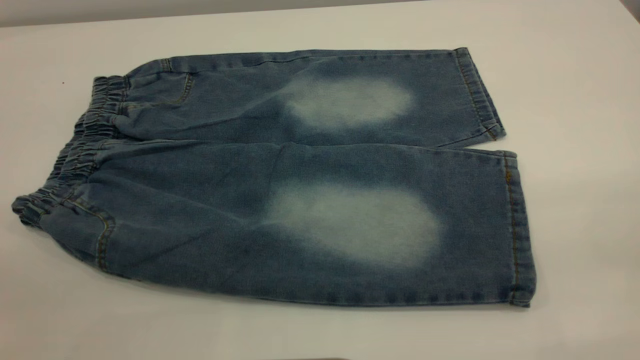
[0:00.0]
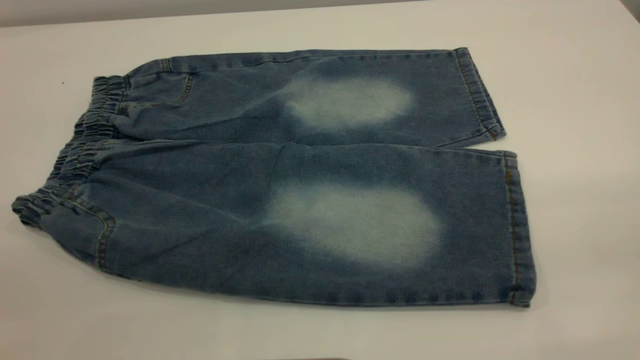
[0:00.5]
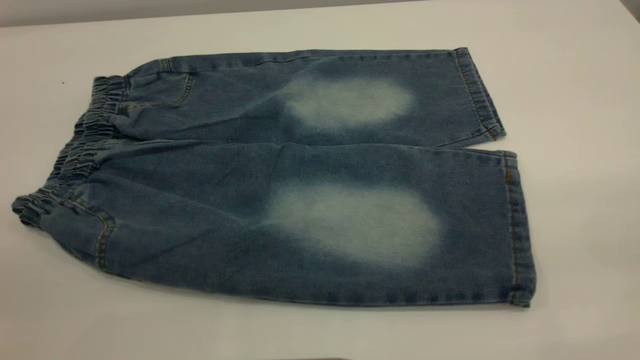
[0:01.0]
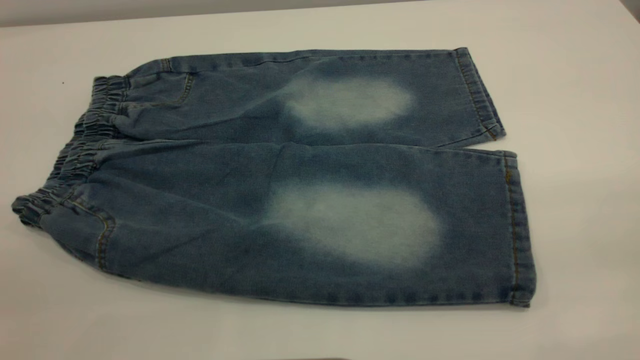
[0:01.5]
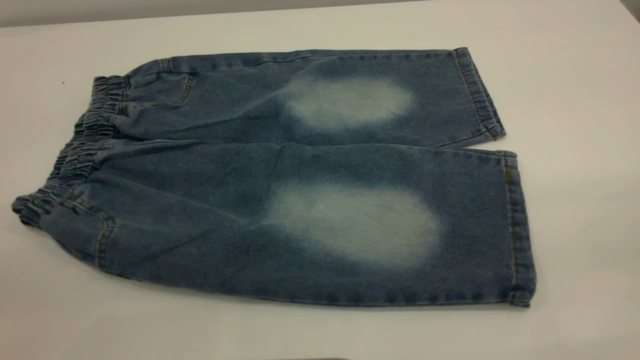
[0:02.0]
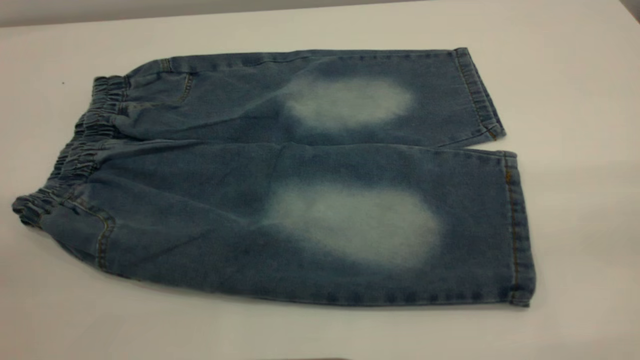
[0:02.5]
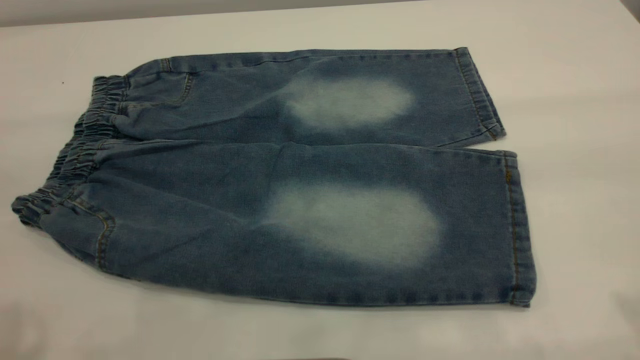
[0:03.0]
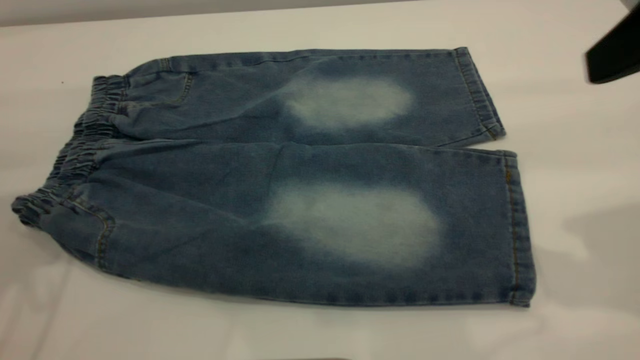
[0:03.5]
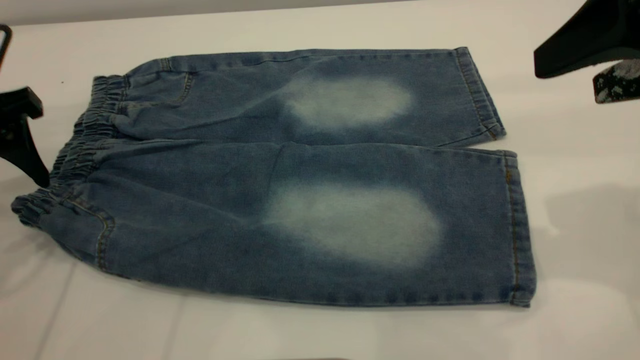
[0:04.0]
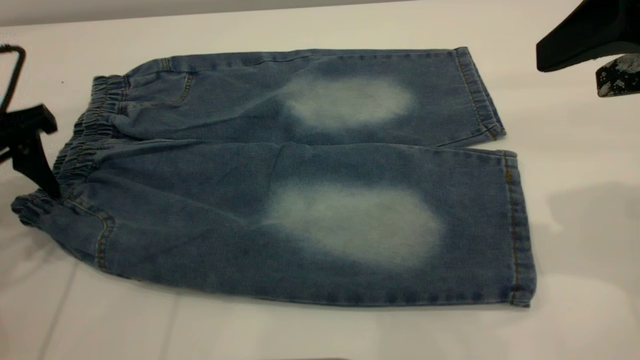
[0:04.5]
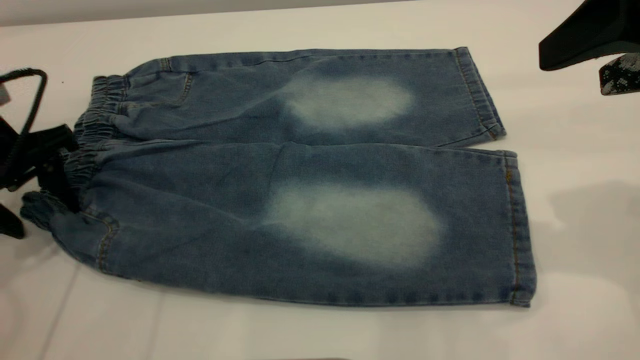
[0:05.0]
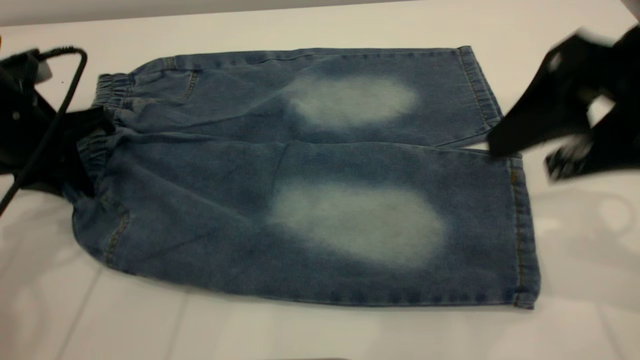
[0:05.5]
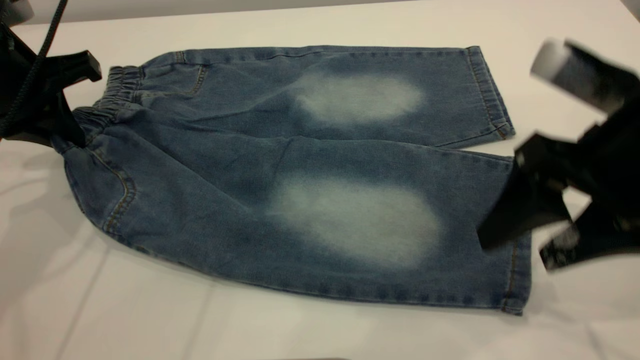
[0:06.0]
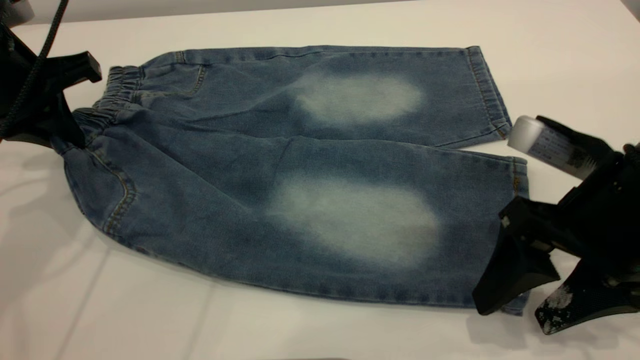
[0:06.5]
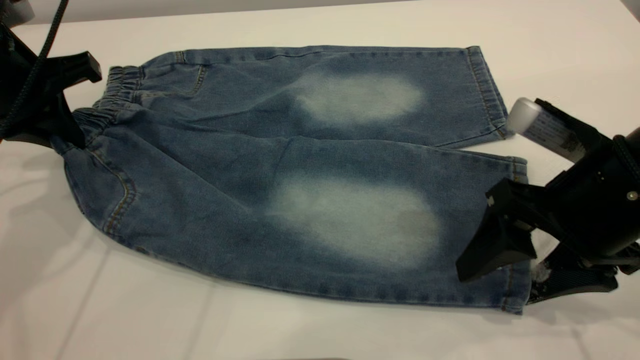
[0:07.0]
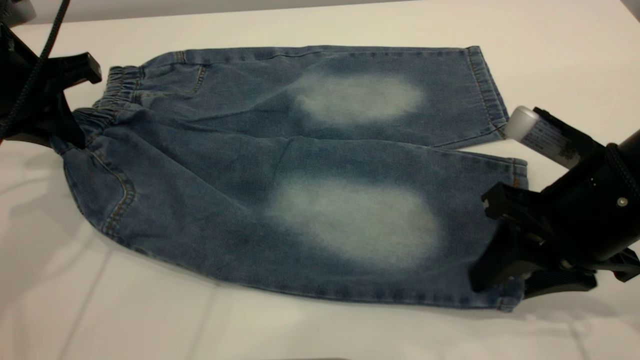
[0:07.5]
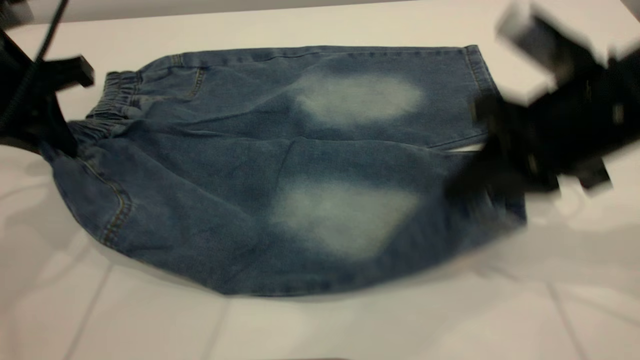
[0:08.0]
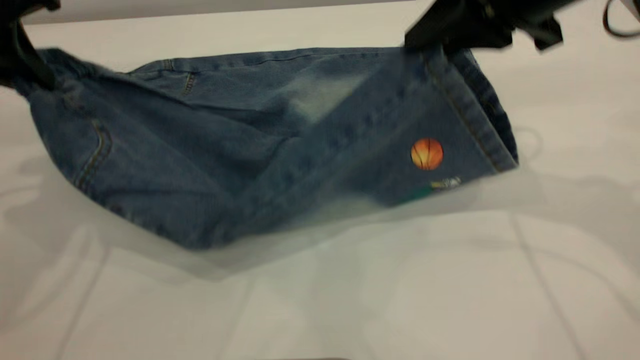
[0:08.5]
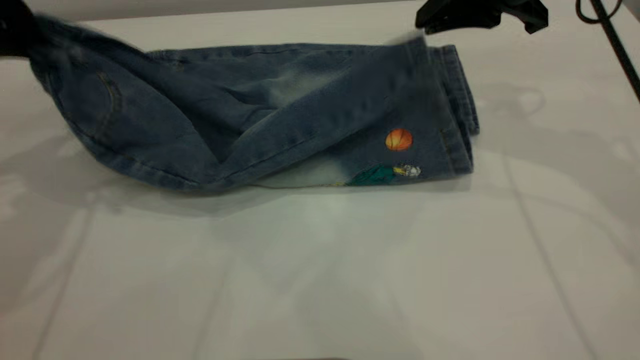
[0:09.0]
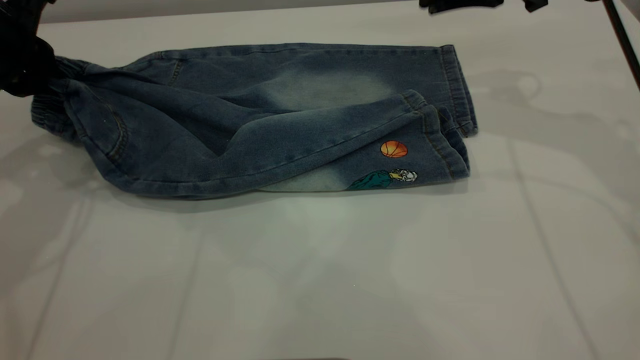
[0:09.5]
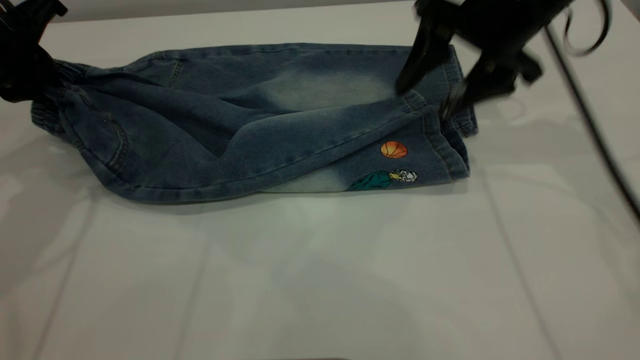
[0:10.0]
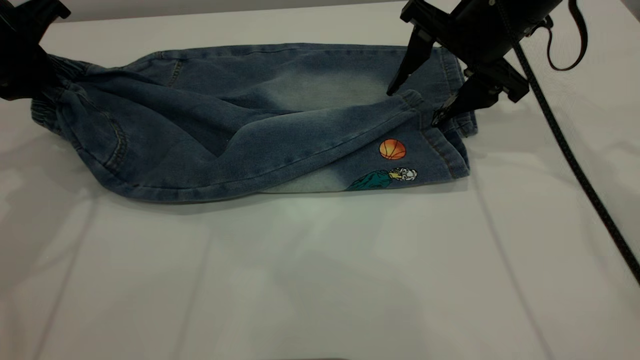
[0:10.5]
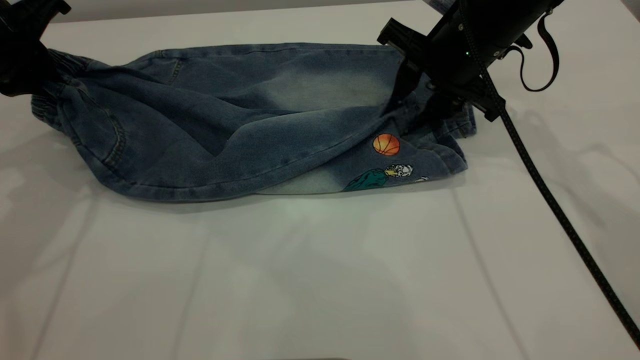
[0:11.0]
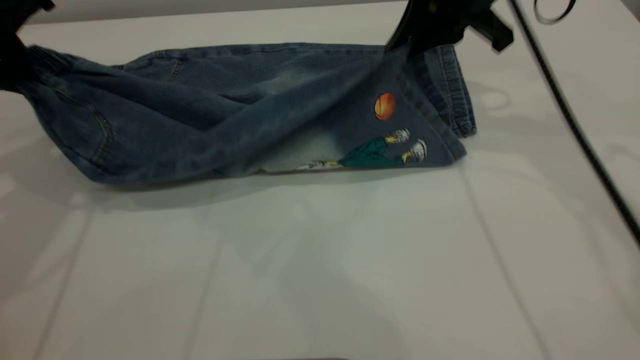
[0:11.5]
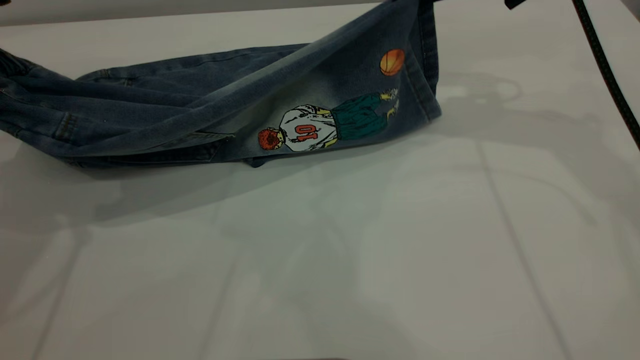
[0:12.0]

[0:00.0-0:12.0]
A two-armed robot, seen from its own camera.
0:00.0 to 0:02.0: Neither gripper changes place.
0:02.0 to 0:04.0: The right gripper is displaced forward by approximately 25 cm, while the left gripper heads forward and downward, covering some 35 cm.
0:04.0 to 0:06.0: The left gripper ends up roughly 5 cm from where it was, and closes its fingers. The right gripper goes some 10 cm downward.
0:06.0 to 0:08.0: The right gripper closes up.
0:08.0 to 0:10.0: The right gripper moves forward, about 15 cm, and opens up.
0:10.0 to 0:12.0: The grippers both shift upward by roughly 5 cm. The right gripper closes.

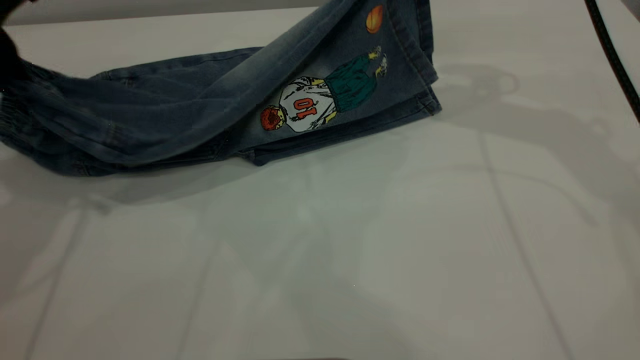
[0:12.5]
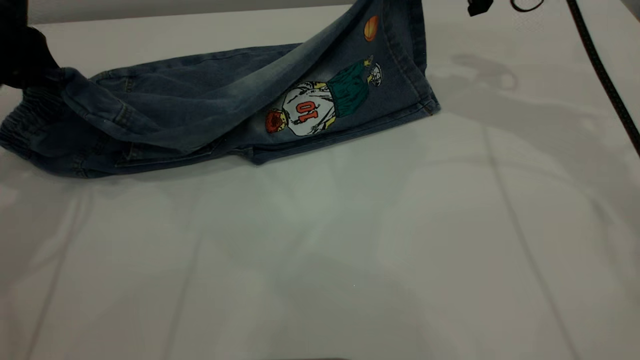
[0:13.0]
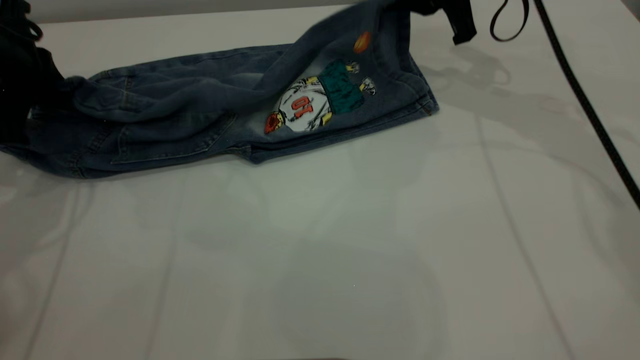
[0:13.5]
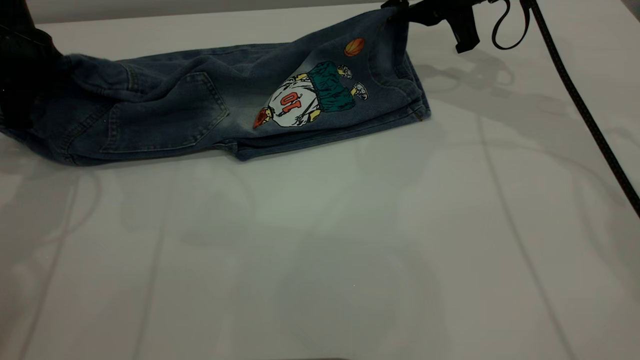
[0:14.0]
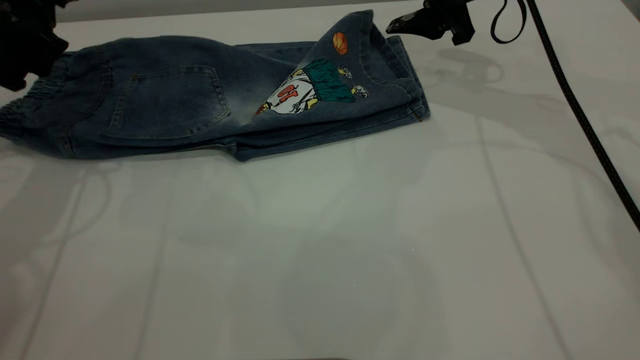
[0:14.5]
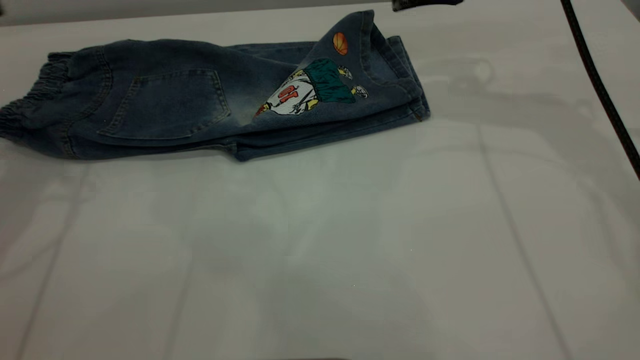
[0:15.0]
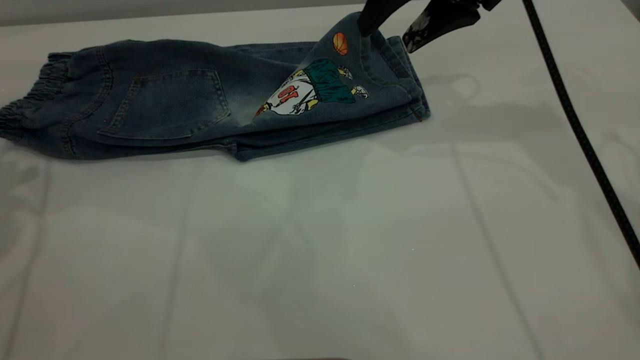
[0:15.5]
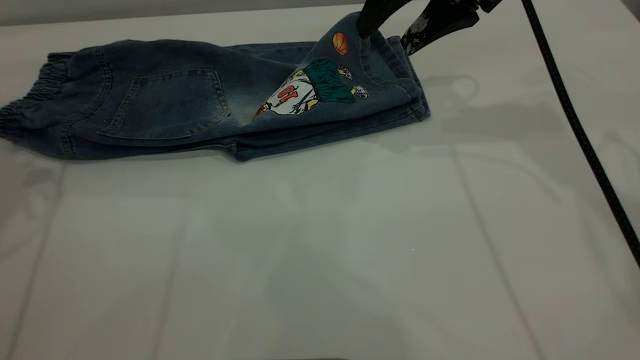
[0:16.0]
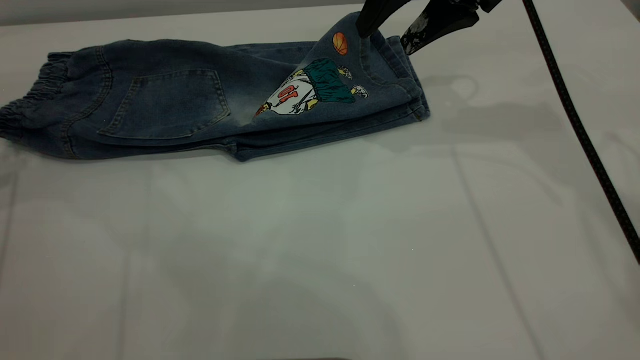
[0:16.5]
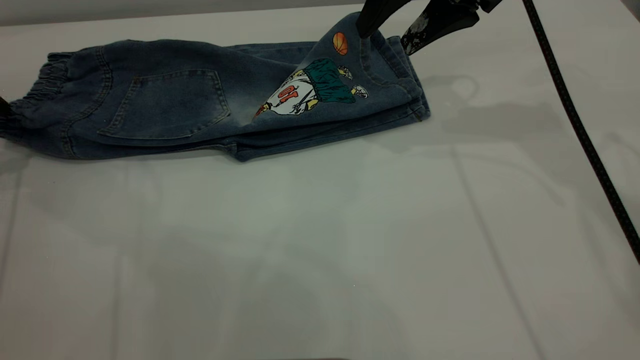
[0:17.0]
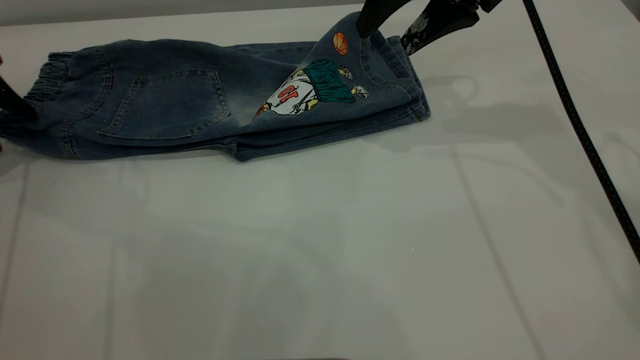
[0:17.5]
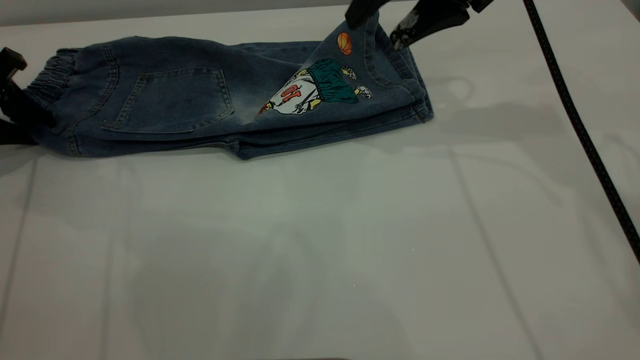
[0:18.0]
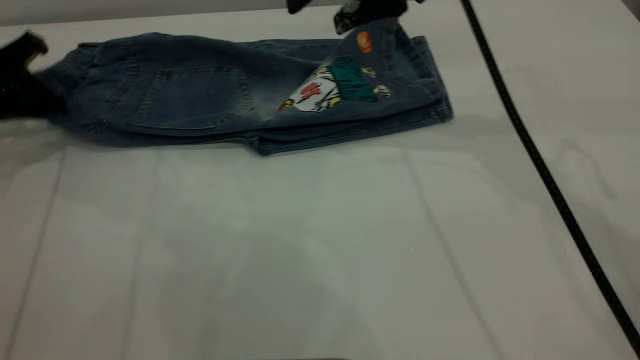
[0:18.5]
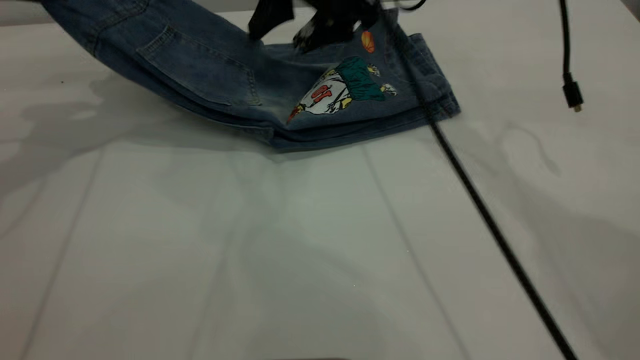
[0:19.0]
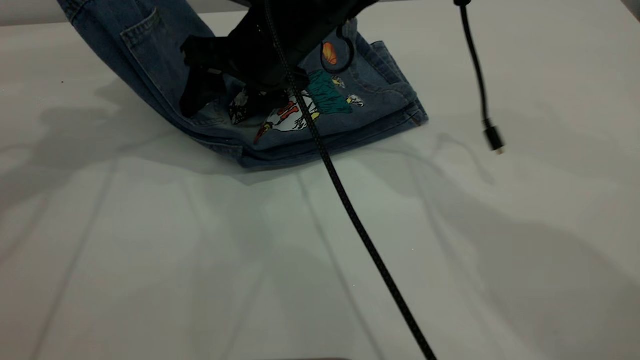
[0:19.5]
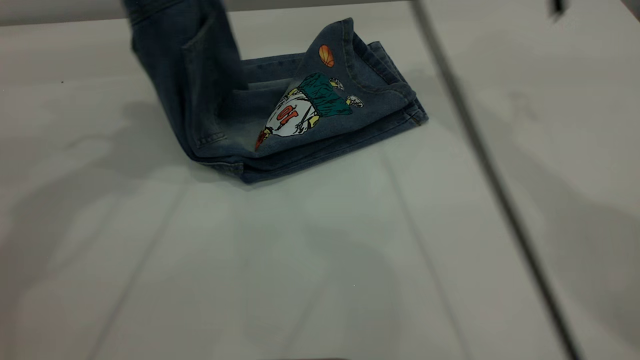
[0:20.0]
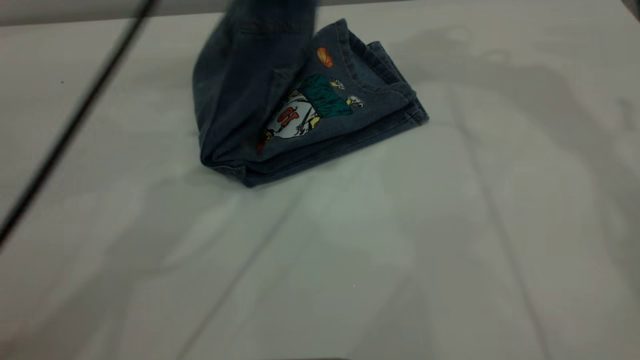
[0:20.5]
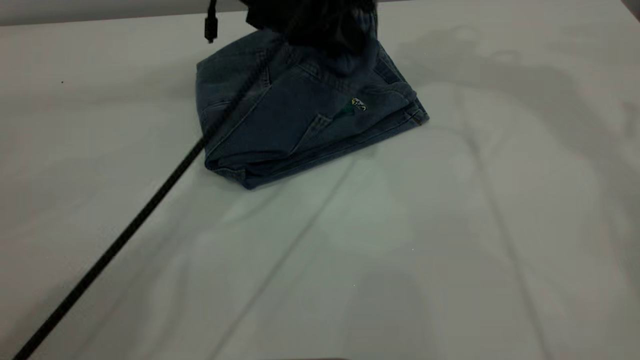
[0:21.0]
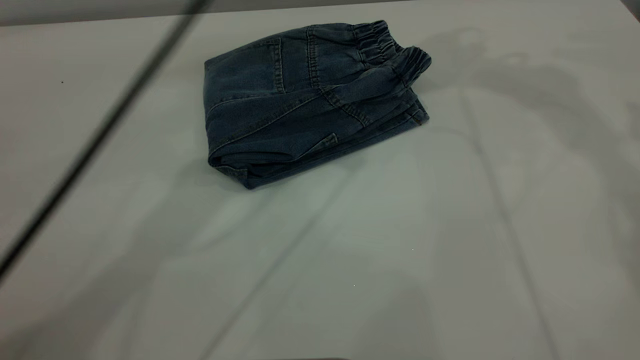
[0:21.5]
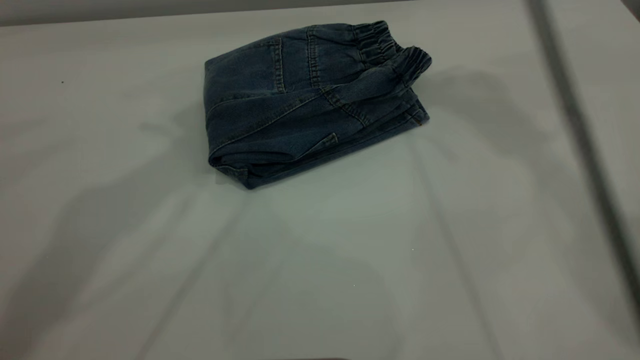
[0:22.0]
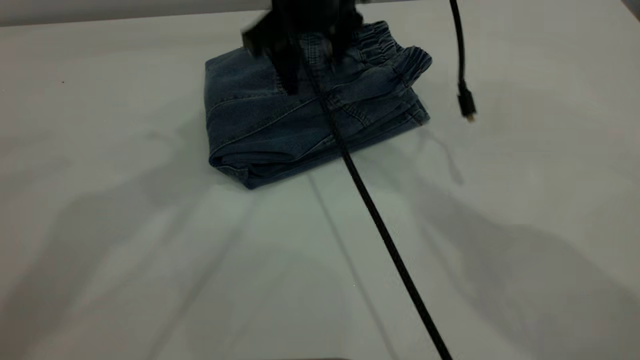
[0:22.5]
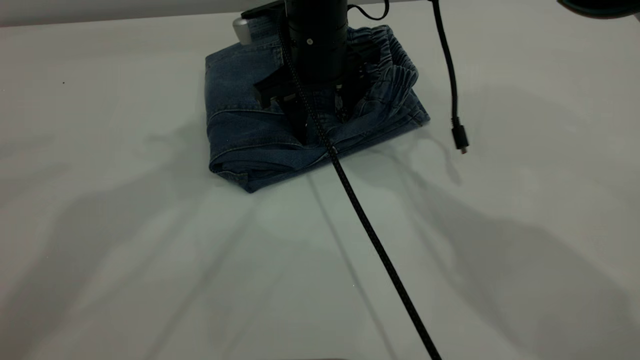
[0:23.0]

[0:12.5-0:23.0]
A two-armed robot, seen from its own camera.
Step, 0:12.5 to 0:14.5: Fold the bottom of the pants upward.
Step, 0:15.0 to 0:21.5: Fold the pants from left to right.
0:12.5 to 0:14.5: The left gripper shifts about 5 cm forward, and opens. Meanwhile the right gripper heads downward, covering about 10 cm, and opens up.
0:14.5 to 0:16.5: The left gripper is displaced to the left by approximately 10 cm, while the right gripper moves upward and backward, roughly 10 cm.
0:16.5 to 0:19.0: The right gripper goes approximately 10 cm to the left. The left gripper moves to the right and upward, about 10 cm, and closes up.
0:19.0 to 0:21.0: The right gripper is displaced upward and to the right by about 25 cm. Meanwhile the left gripper goes roughly 25 cm to the right.
0:21.0 to 0:23.0: The right gripper is displaced downward and to the left by some 35 cm. The left gripper shifts about 25 cm upward and to the left, and opens.
